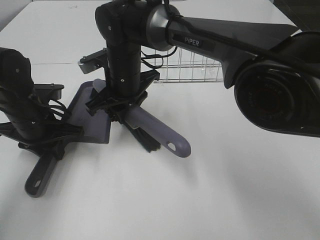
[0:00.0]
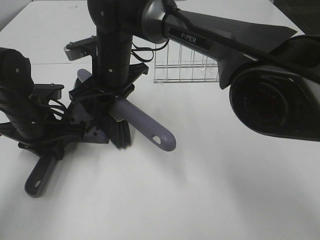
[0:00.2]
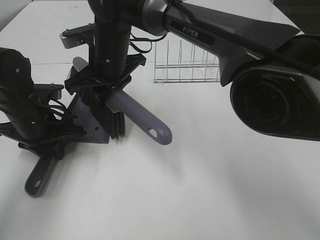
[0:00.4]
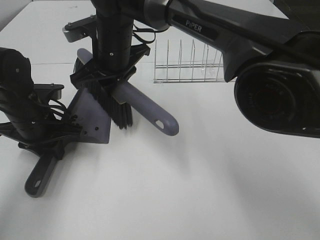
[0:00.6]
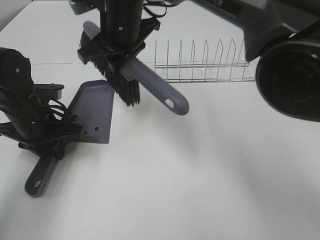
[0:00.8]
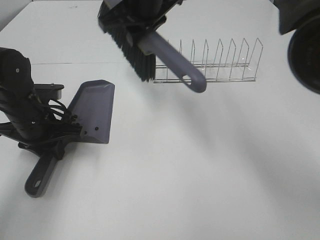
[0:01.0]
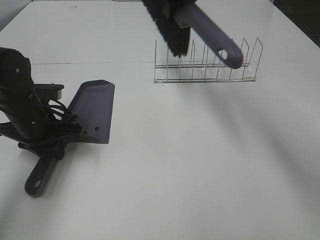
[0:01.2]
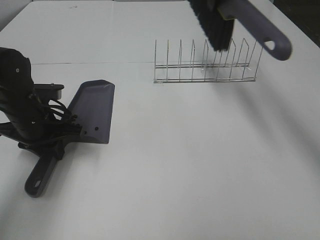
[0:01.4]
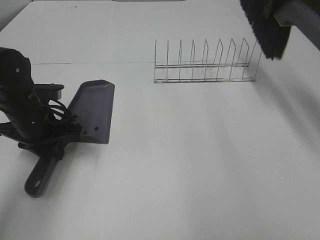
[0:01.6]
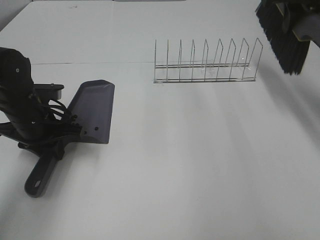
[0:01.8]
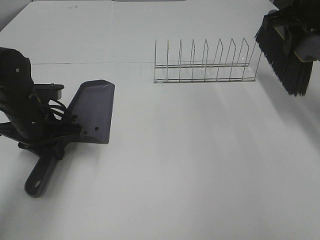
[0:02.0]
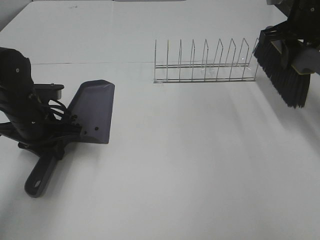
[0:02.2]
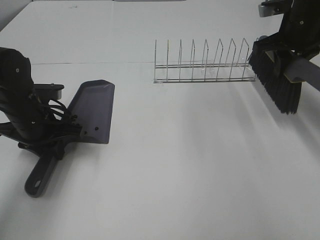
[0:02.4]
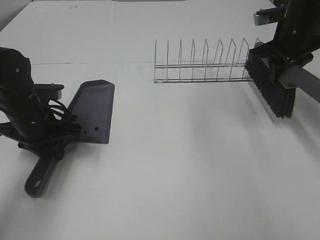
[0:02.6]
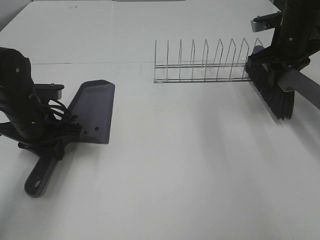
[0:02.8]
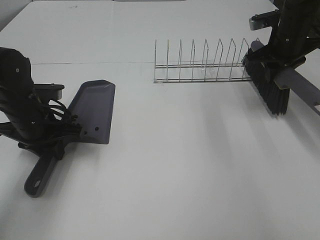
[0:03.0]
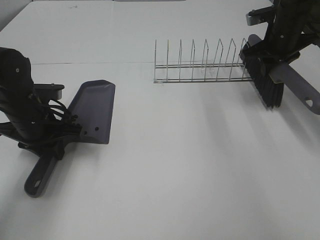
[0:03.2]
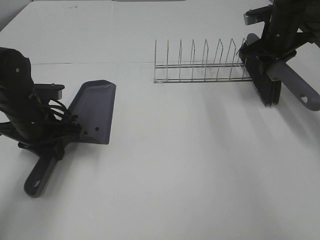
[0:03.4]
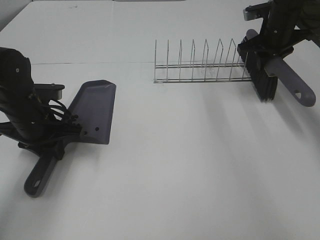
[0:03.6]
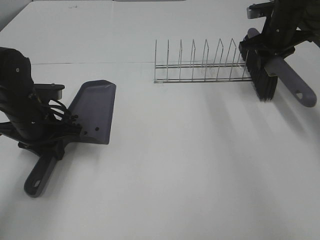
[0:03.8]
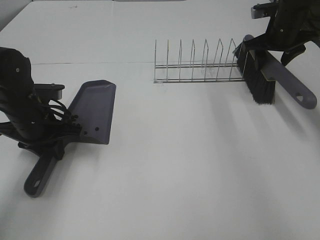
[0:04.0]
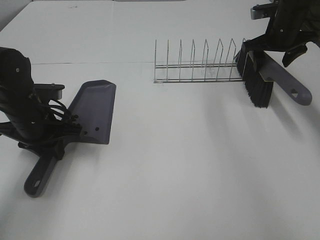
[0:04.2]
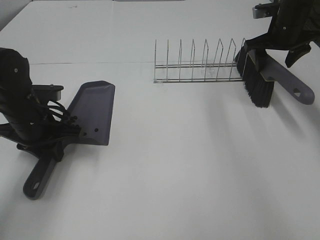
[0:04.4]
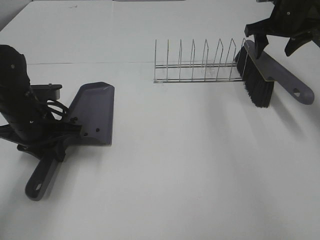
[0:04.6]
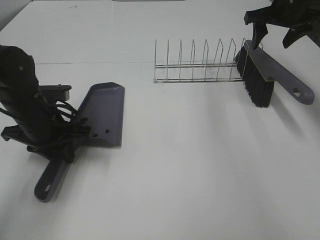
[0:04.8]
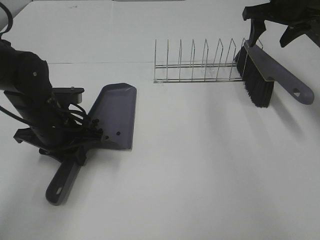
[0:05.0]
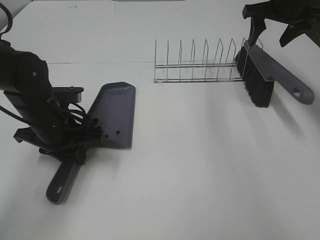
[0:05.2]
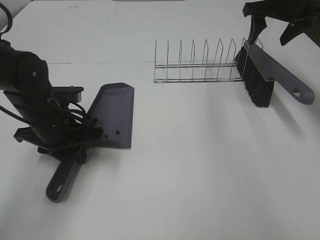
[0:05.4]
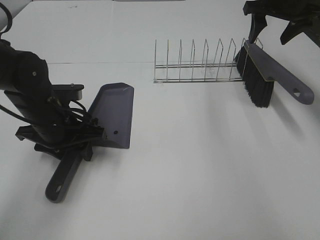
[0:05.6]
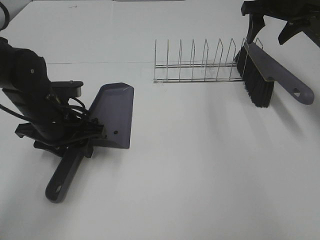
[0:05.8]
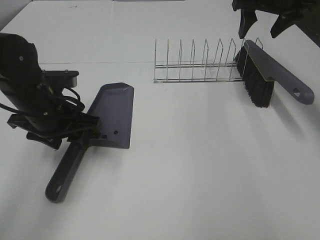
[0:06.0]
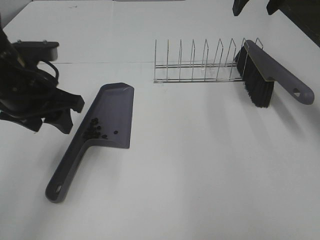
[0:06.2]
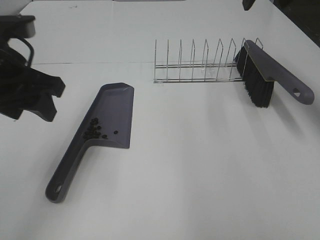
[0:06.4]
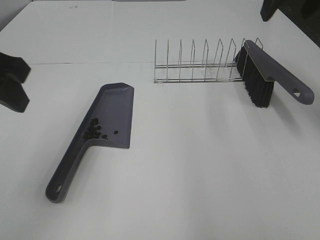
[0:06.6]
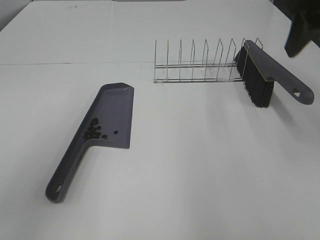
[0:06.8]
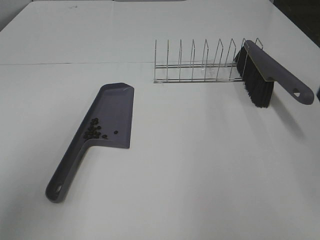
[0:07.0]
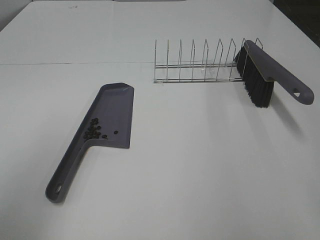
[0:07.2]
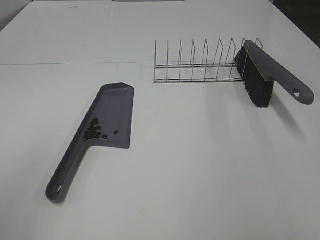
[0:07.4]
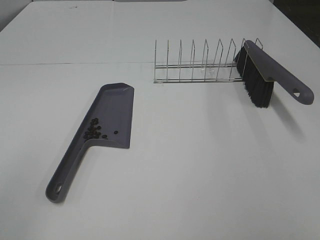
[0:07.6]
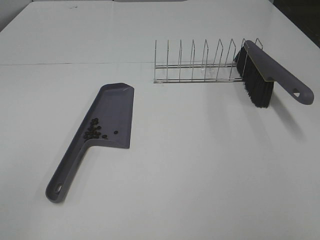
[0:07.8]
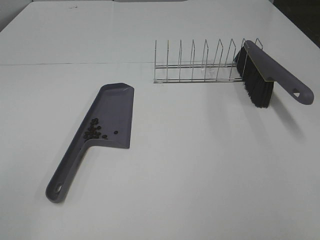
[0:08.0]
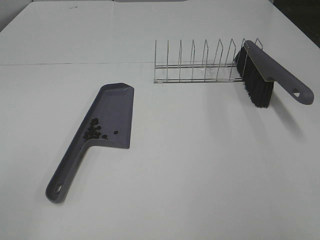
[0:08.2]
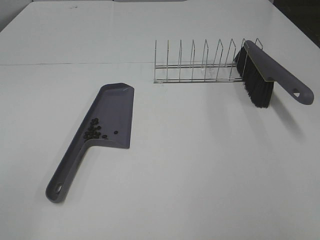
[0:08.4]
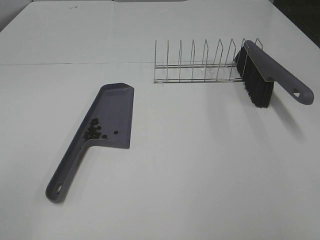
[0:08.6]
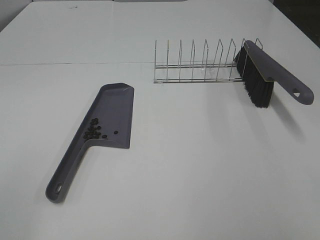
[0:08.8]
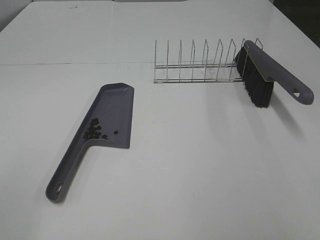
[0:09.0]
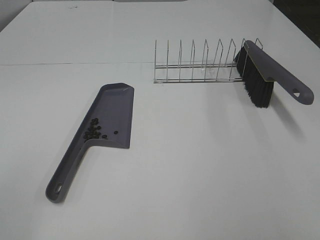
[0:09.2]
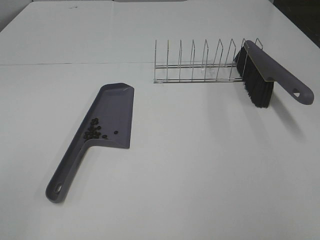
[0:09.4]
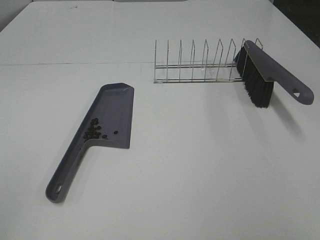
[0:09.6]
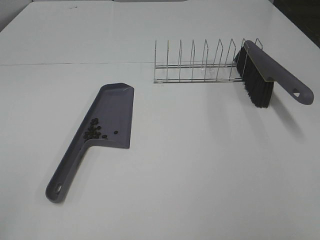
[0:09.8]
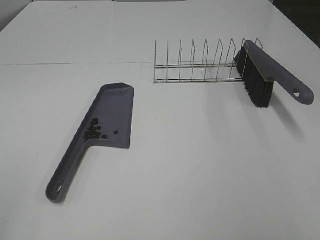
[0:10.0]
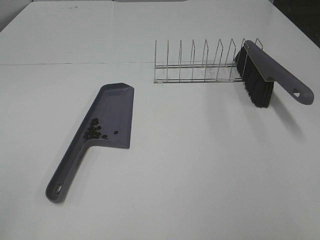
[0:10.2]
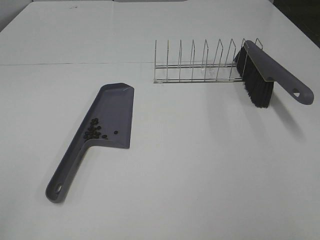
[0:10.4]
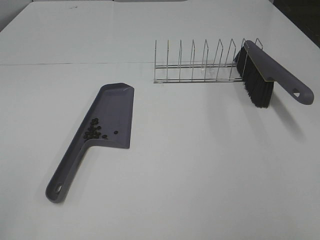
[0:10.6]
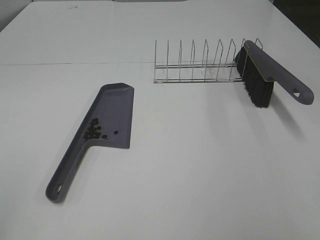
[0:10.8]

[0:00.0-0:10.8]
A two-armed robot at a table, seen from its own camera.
Task of the whole recording: Sweep Coffee Bean.
Step, 0:00.8 to 0:04.2: Right hand:place the broom on the rack.
Step, 0:04.4 to 0:06.0: Left hand:place the dustpan on the table.
0:00.0 to 0:01.6: The right gripper shifts approximately 35 cm to the right and upward.
0:01.6 to 0:03.0: The right gripper heads downward, covering approximately 15 cm.
0:03.0 to 0:04.6: The right gripper shifts by approximately 5 cm, and opens its fingers.
0:04.6 to 0:06.2: The right gripper heads upward and to the left, covering about 10 cm, while the left gripper goes approximately 10 cm upward, and opens its fingers.
0:06.2 to 0:07.8: The right gripper is displaced backward by roughly 50 cm; the left gripper is displaced backward and to the left by roughly 30 cm.

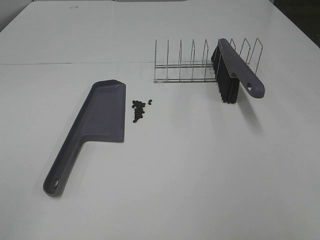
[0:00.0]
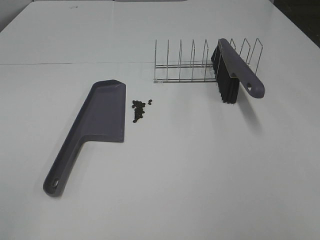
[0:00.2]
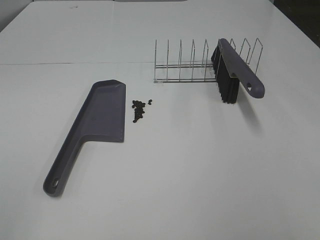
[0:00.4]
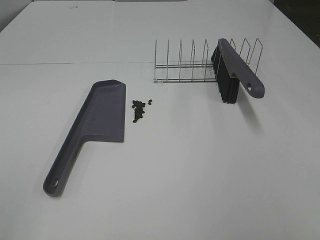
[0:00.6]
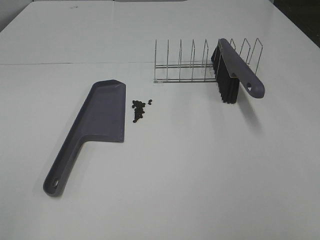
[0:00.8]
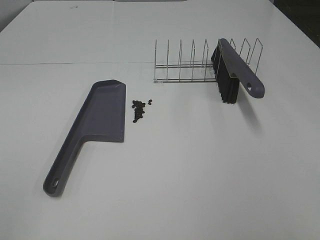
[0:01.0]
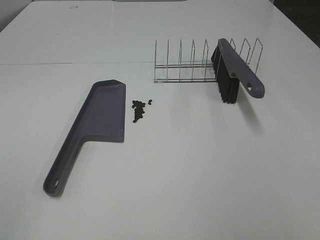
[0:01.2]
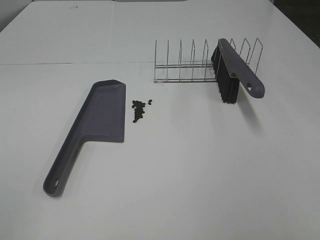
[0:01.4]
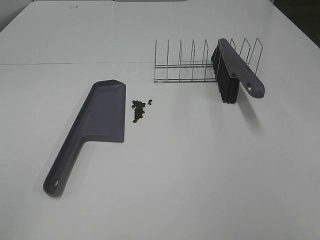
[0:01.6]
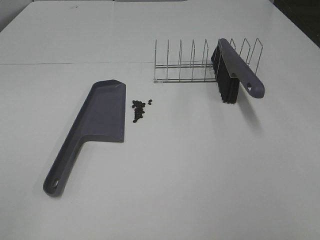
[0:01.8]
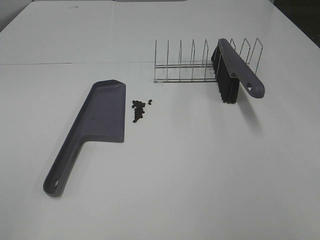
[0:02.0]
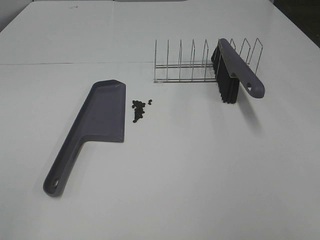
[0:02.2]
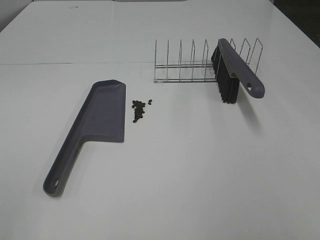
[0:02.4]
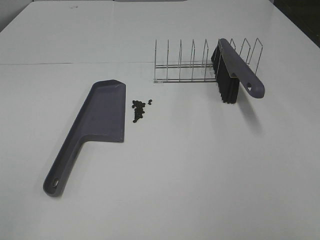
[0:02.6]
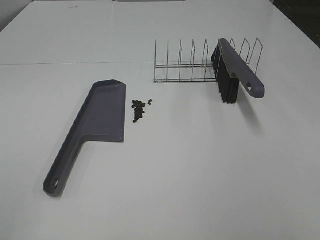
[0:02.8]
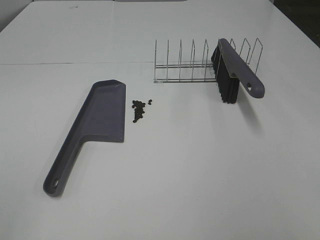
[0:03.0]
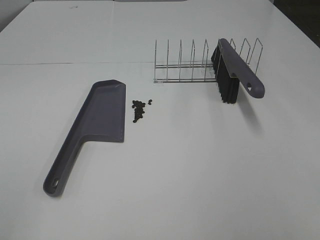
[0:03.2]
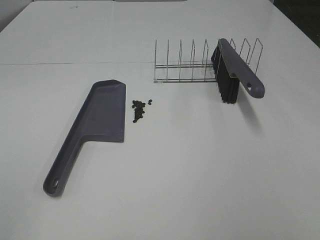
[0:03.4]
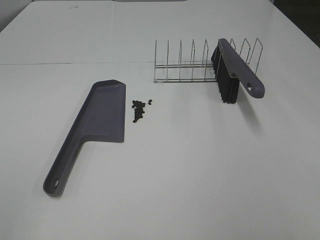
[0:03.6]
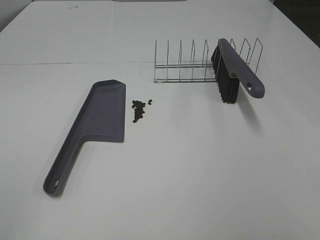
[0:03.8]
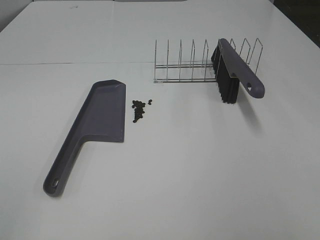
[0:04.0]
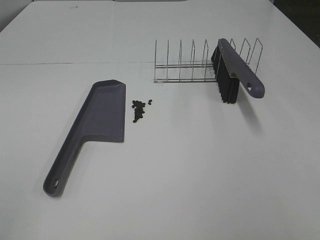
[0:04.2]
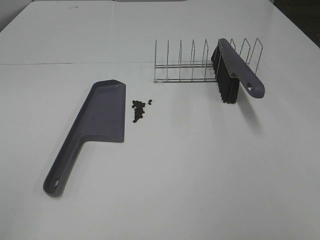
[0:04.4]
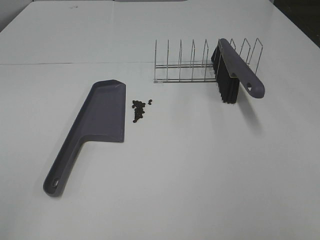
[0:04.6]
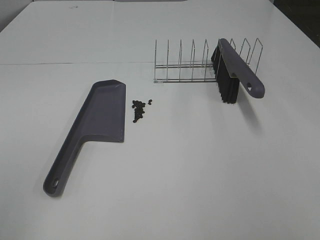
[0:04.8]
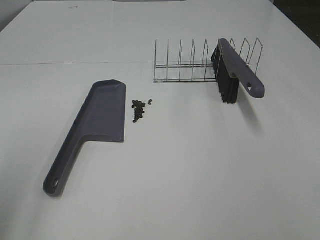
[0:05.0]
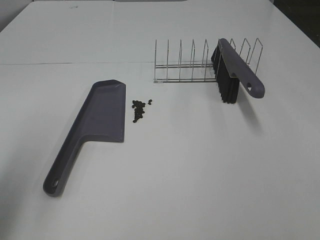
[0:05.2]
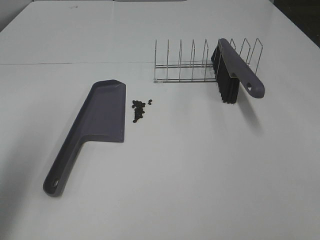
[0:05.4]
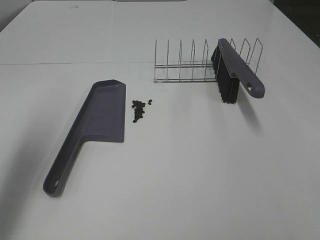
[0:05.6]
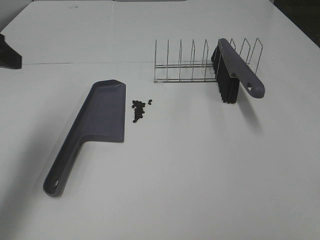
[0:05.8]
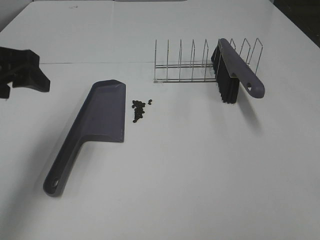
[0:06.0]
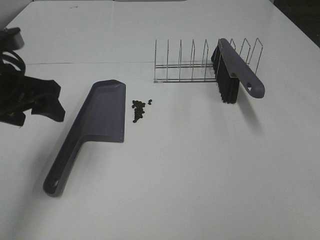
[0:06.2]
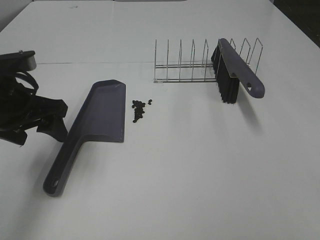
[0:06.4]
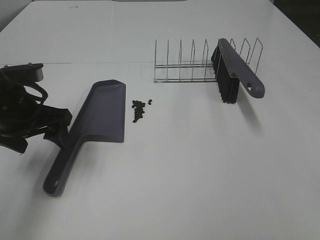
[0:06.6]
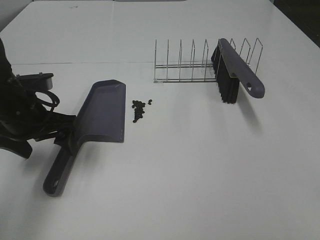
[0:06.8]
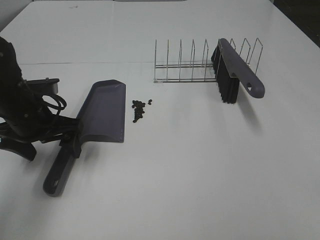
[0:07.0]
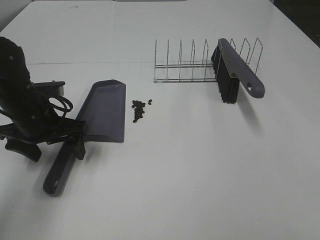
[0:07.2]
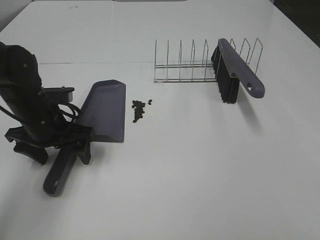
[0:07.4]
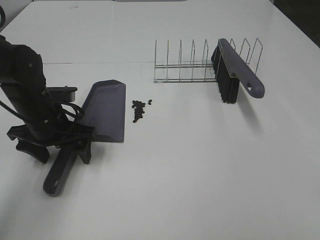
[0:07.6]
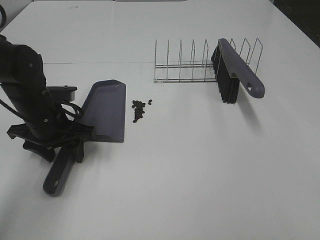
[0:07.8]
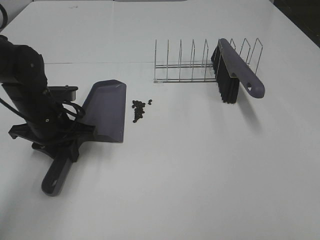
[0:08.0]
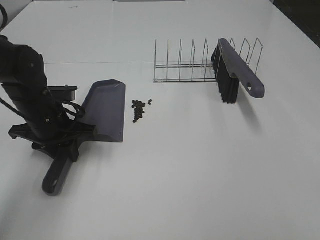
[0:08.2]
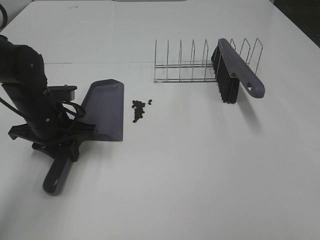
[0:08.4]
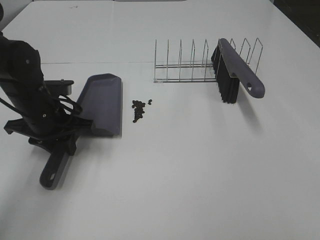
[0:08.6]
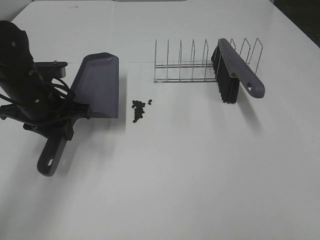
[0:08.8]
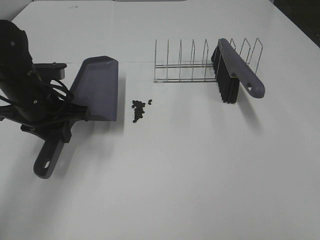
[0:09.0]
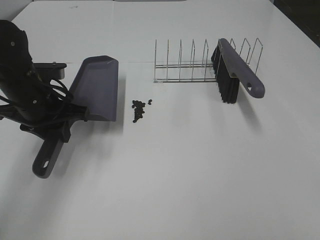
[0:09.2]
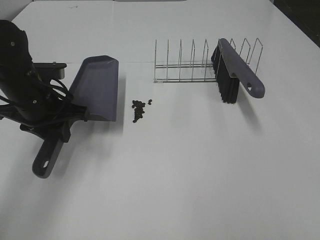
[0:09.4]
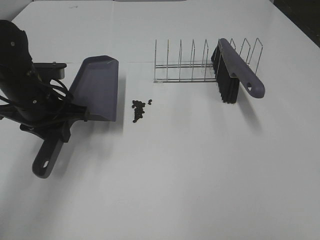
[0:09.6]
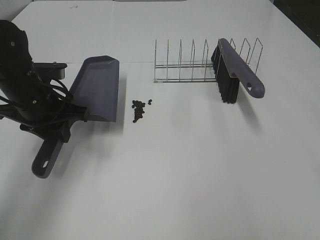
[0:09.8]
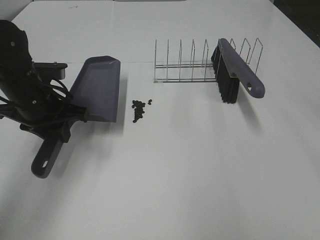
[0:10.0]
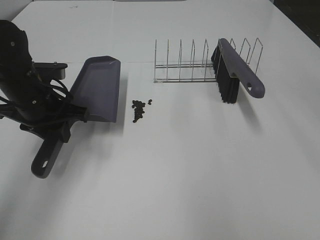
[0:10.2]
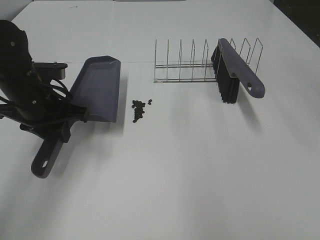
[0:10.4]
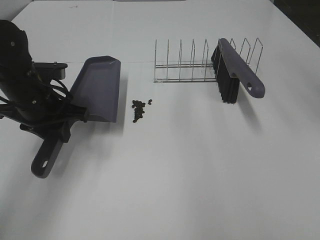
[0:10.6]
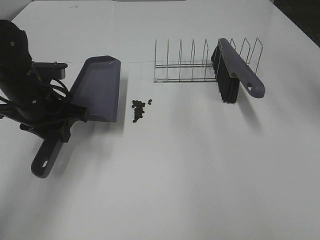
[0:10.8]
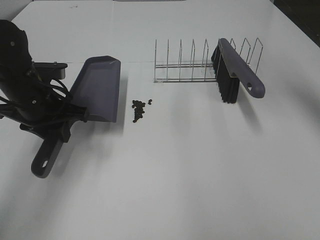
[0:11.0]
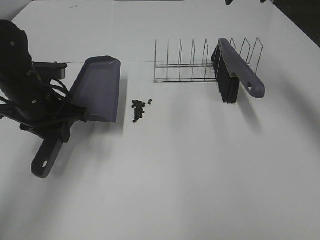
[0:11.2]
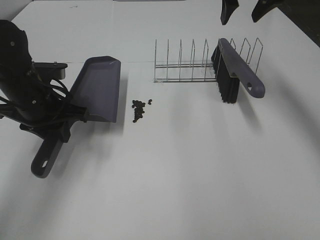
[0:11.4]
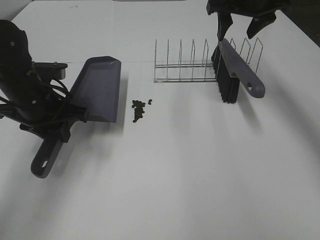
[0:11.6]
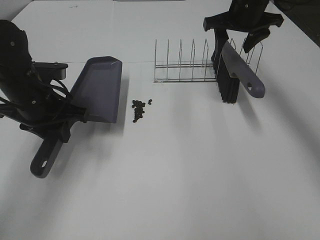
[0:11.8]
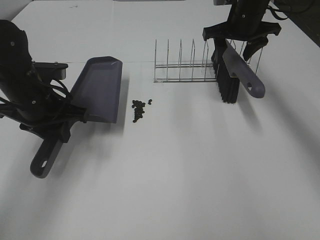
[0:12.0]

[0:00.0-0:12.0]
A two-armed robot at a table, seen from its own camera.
Task of the whole recording: Sweep Coffee Bean.
Step, 0:00.0 to 0:08.0: Left hand: grab the dustpan.
0:00.0 to 0:04.4: Neither gripper changes place.
0:04.4 to 0:06.0: The left gripper is displaced forward by approximately 30 cm.
0:06.0 to 0:07.6: The left gripper moves downward, about 15 cm.
0:07.6 to 0:09.0: The left gripper closes.
0:10.4 to 0:12.0: The right gripper shifts about 30 cm downward and forward.
